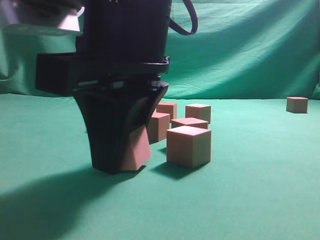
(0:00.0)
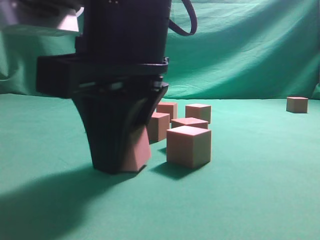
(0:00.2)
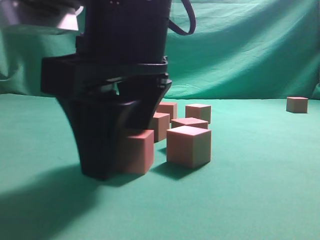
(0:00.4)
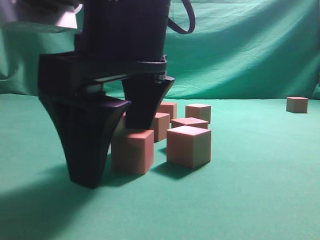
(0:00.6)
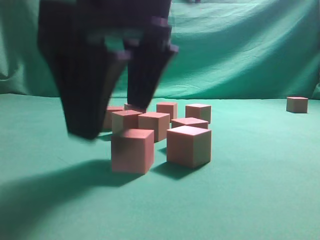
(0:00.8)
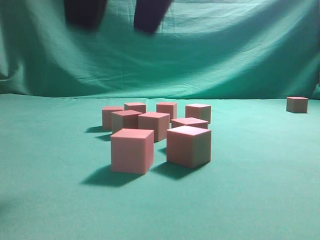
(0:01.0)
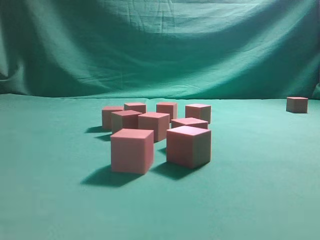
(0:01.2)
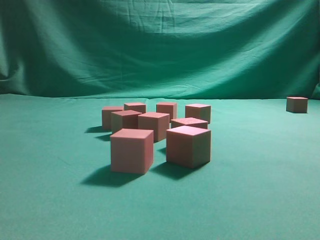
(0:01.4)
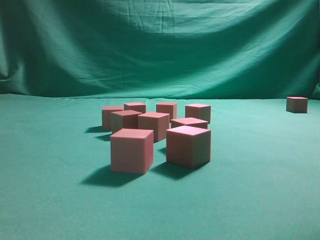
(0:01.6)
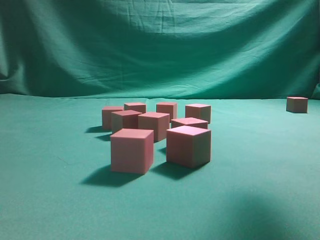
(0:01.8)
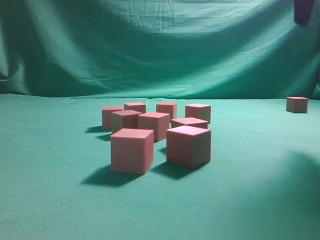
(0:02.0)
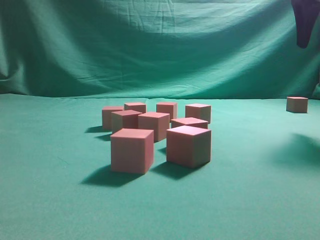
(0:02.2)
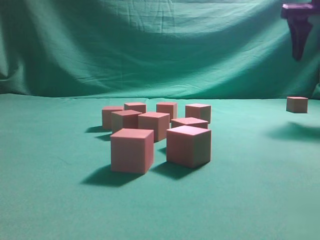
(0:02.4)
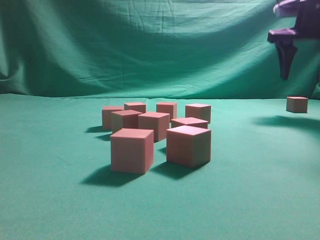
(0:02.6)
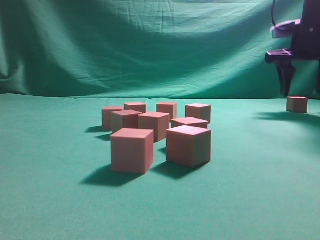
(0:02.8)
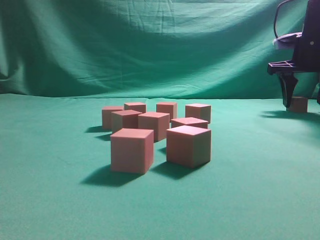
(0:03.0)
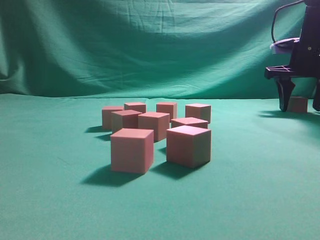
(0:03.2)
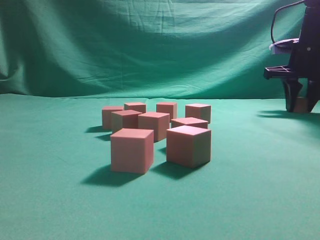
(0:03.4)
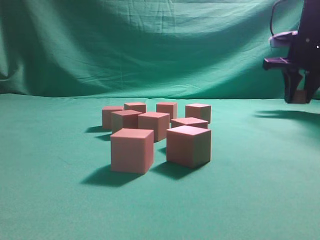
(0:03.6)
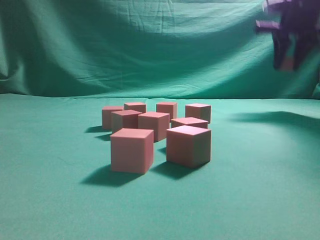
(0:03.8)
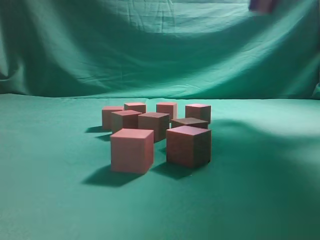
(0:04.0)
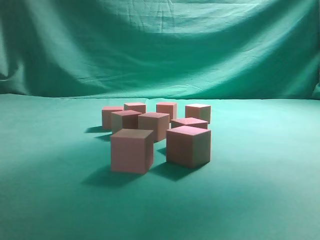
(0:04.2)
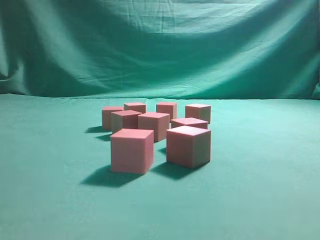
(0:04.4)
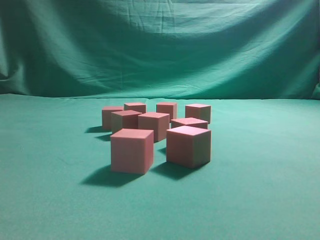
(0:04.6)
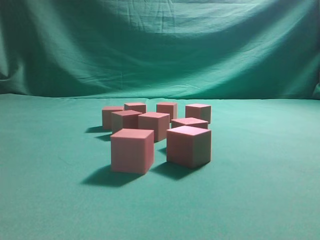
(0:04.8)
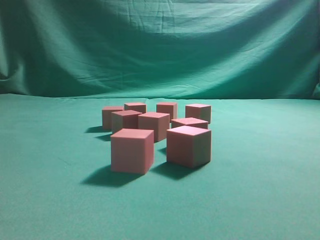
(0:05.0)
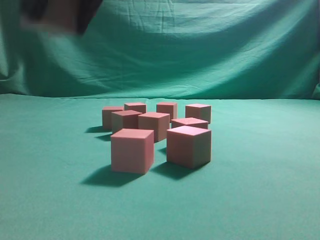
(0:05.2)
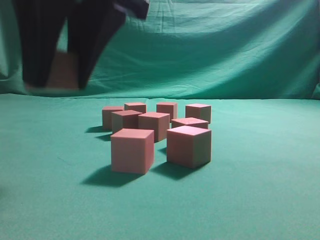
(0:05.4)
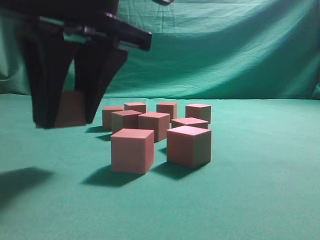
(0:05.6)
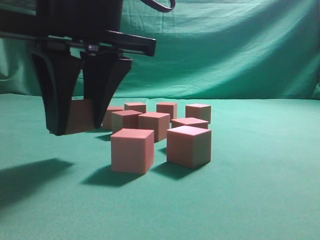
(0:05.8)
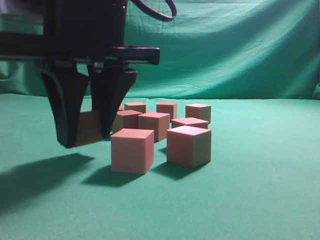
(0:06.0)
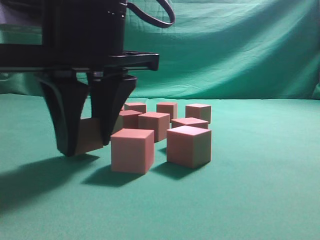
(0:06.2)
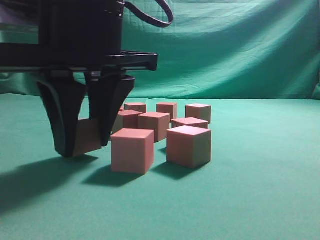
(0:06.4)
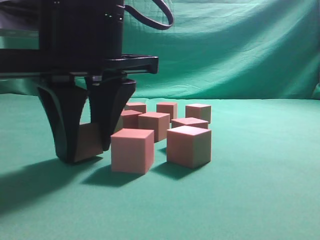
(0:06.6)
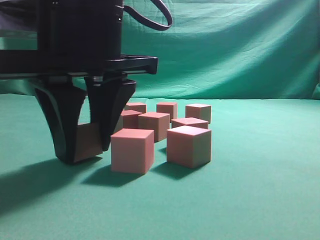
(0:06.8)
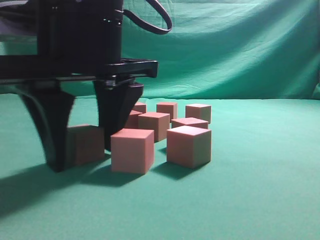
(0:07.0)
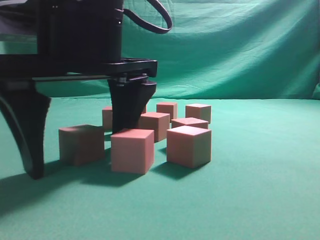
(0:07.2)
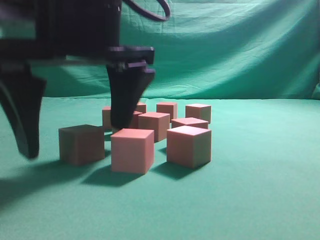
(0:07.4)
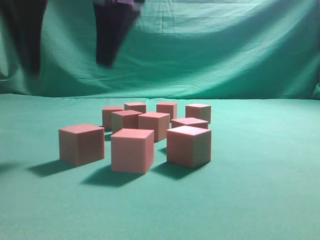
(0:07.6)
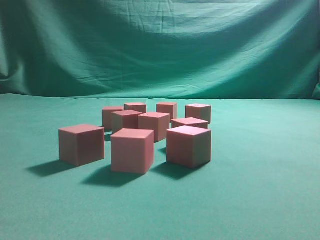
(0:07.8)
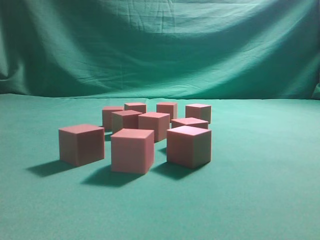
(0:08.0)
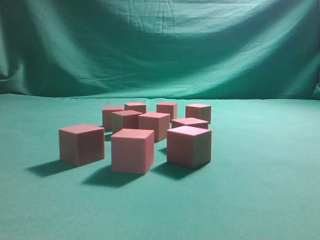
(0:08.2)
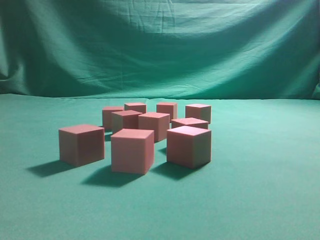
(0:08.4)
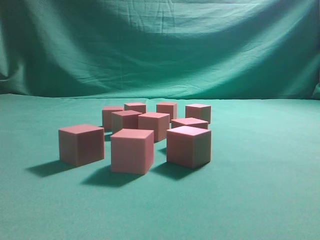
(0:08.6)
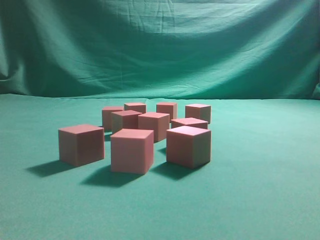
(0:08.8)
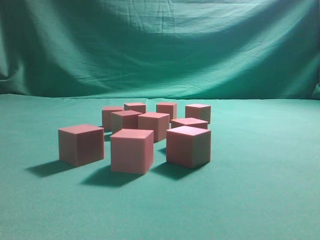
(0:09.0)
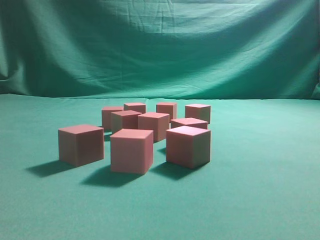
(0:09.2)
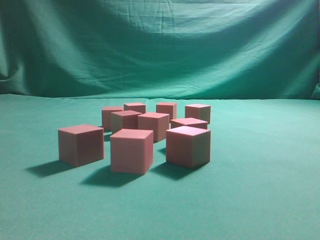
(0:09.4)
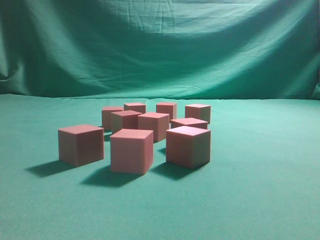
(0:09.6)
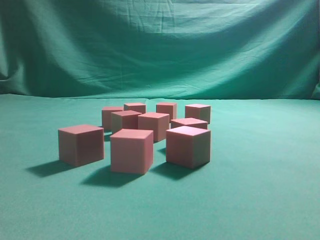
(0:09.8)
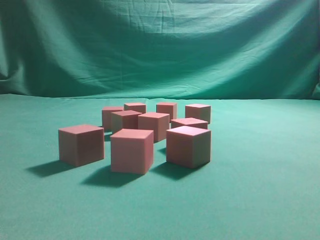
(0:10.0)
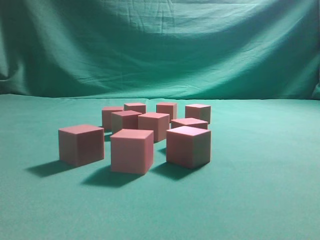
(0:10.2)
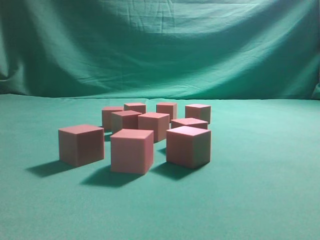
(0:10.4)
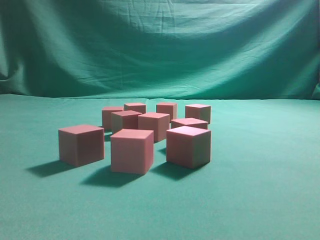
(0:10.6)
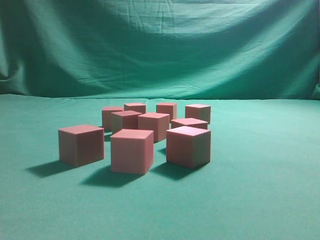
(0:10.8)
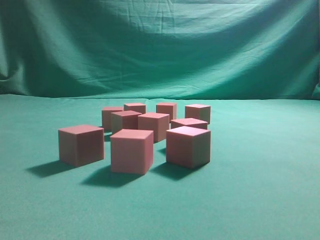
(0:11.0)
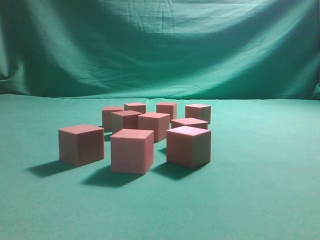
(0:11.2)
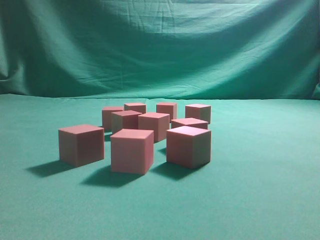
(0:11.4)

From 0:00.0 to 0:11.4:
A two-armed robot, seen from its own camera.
Task of the whole recording: pick up the multiple cubes in two columns one by one and place them in another position on the table.
Step, from 0:01.0 to 0:03.4: Pick up the block on the table.
Step, from 0:03.6 to 0:07.4: Place the block at the correct position to assemble the letter S.
From 0:00.0 to 0:01.4: The right gripper travels upward and to the right by some 25 cm, and opens up.
From 0:01.4 to 0:02.8: The right gripper shifts some 40 cm forward, downward and to the right.
From 0:02.8 to 0:04.2: The right gripper travels upward and to the left by some 25 cm, and closes up.
From 0:04.2 to 0:05.6: The right gripper goes approximately 35 cm to the left, downward and backward.
From 0:05.6 to 0:07.2: The right gripper opens up.
From 0:07.2 to 0:08.6: The right gripper goes about 40 cm upward and to the right, and closes.
